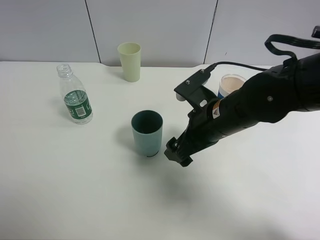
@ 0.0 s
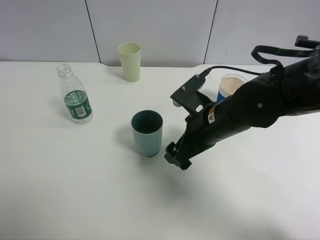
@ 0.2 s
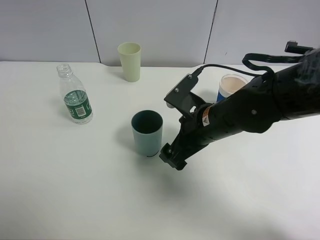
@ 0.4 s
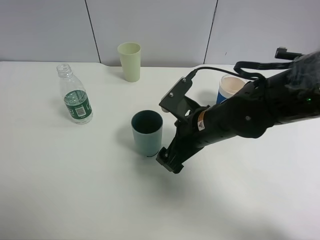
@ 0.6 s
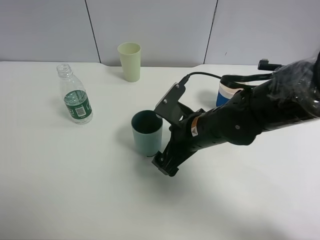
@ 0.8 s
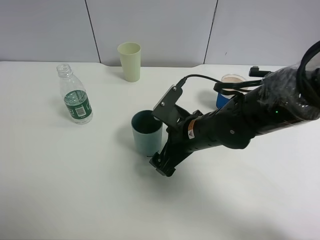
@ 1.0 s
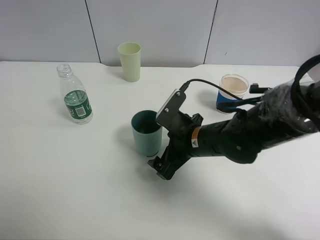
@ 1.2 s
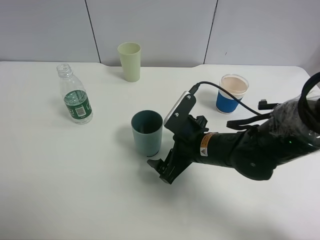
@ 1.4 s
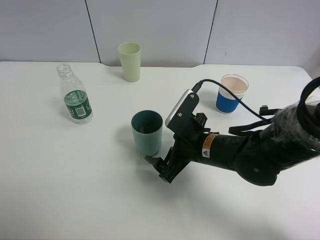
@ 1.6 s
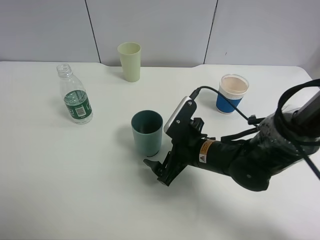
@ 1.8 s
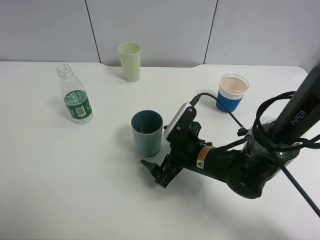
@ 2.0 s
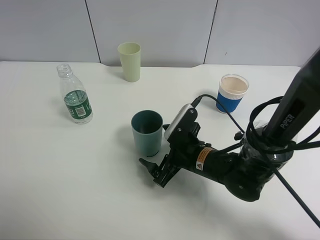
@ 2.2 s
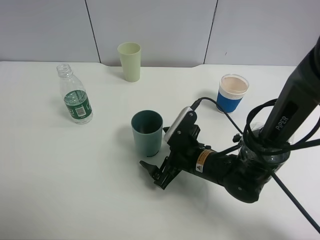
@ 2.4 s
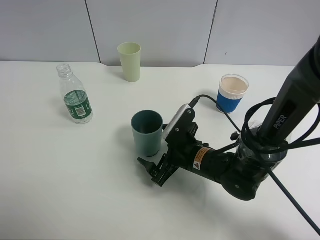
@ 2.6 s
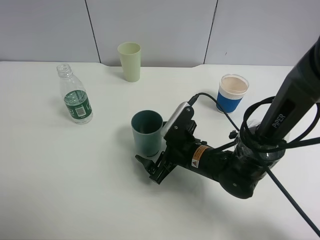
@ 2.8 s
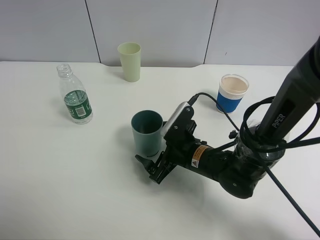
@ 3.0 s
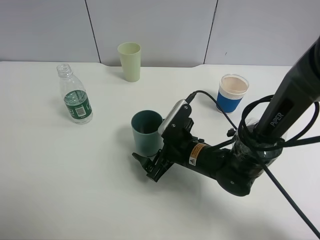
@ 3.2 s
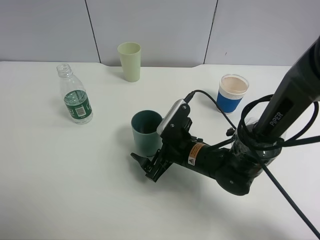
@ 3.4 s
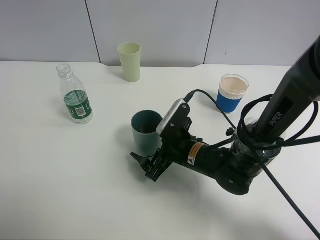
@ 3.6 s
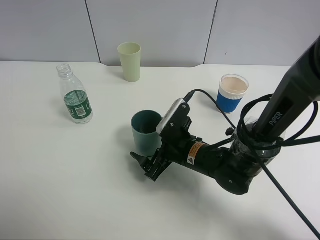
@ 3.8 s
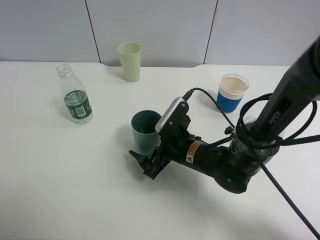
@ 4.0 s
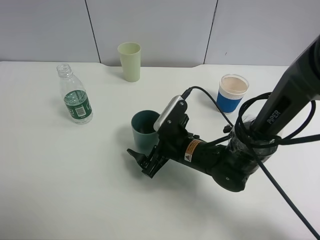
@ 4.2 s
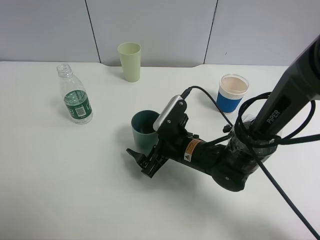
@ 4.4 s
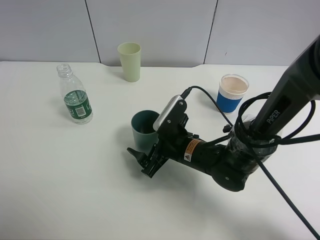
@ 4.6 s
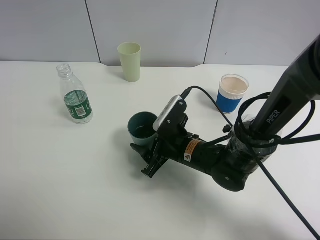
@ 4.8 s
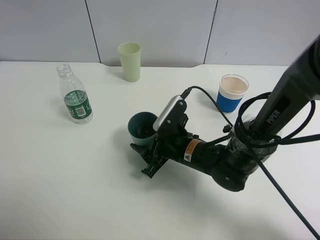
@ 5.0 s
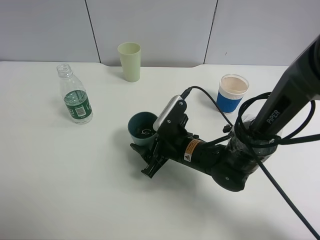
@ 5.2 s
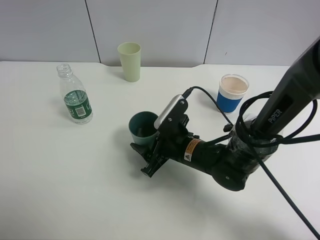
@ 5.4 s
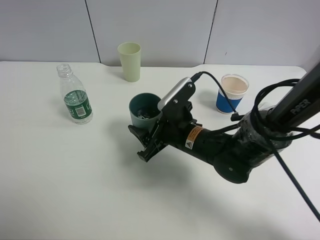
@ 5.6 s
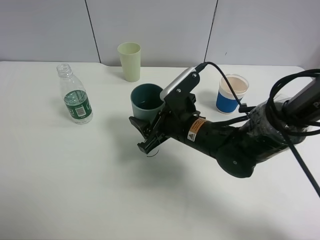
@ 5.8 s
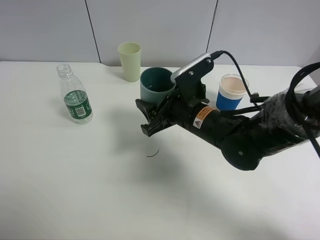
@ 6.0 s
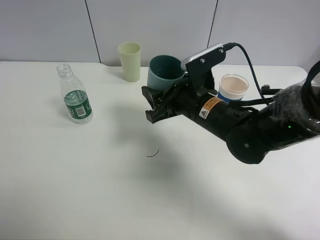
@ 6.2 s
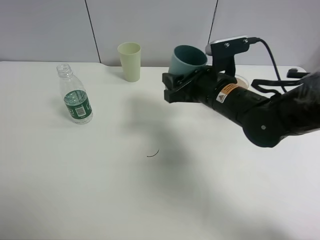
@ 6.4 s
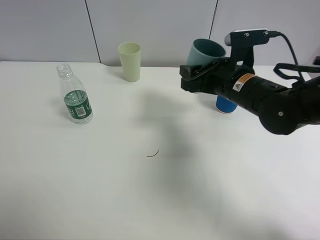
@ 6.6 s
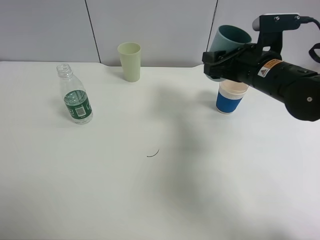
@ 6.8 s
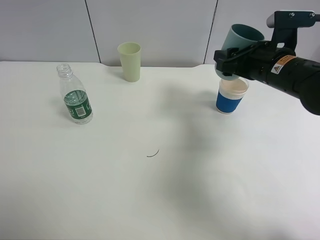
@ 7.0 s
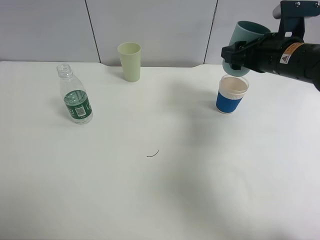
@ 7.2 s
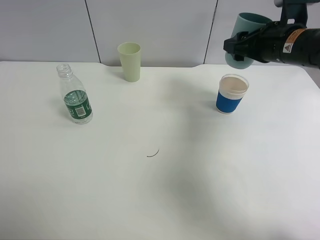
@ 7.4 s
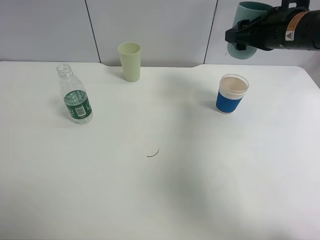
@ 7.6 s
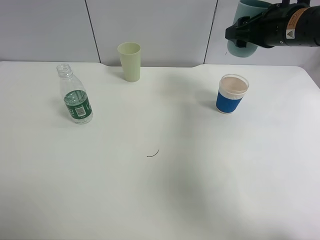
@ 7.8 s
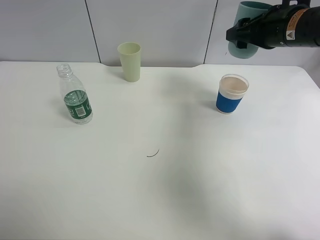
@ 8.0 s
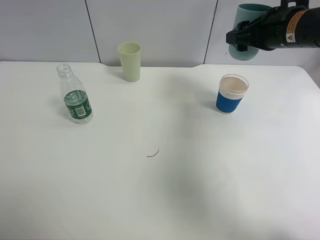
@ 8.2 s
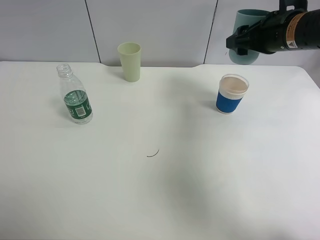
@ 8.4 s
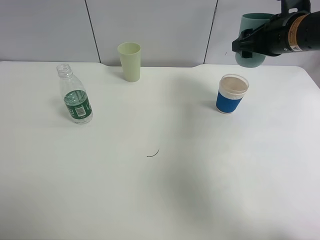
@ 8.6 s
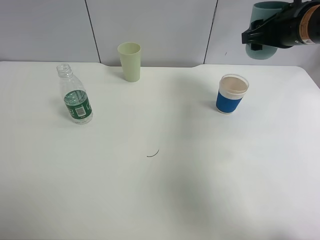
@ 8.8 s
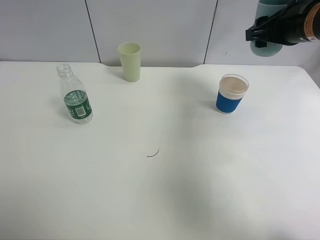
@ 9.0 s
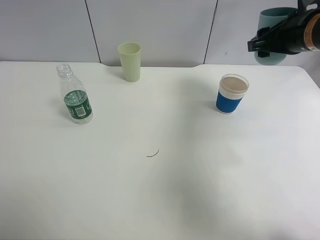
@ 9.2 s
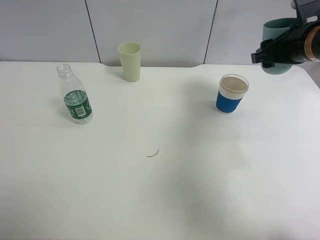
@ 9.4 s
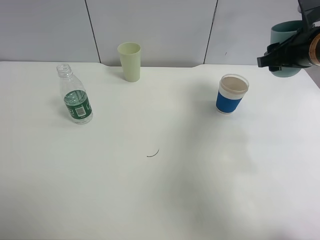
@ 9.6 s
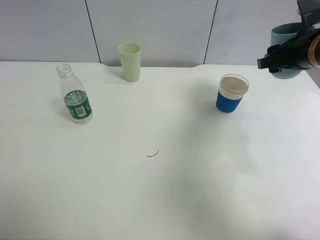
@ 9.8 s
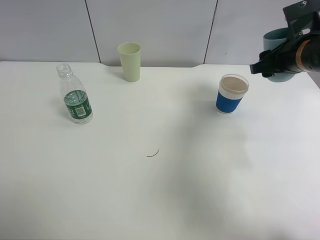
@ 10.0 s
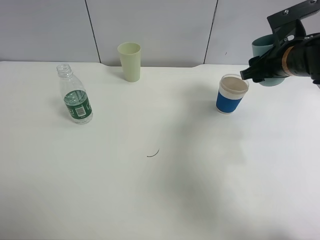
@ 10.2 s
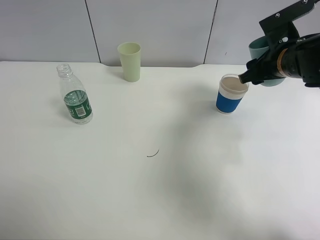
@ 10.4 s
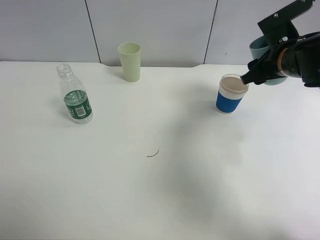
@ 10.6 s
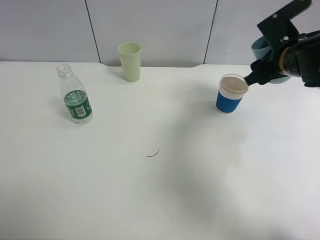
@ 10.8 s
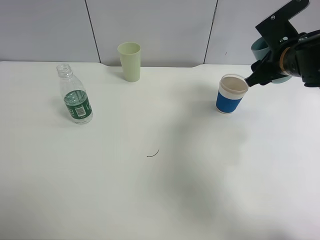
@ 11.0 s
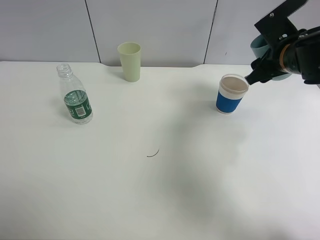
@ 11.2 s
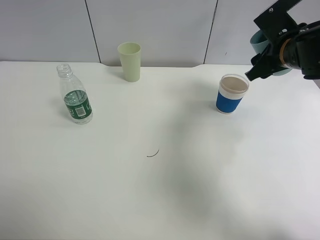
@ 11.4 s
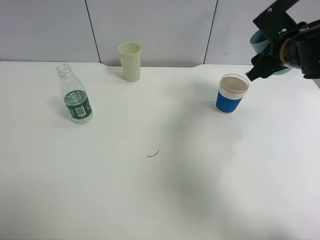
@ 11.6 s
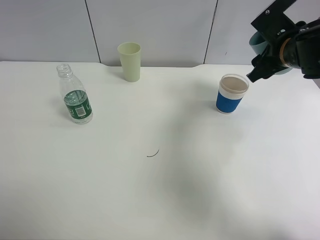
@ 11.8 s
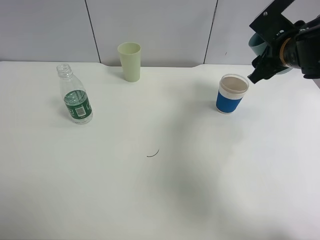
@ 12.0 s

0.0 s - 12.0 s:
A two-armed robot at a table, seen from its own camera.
Task of the whole recording: use a clamp to hold the bottle of the drink, pour the beverage into a random cup, then clamp the cup containing the drink and pour the drink into another random cup.
Step, 0.0 s - 5.6 s: Pick up the blue plastic cup bottle with right gripper.
0.0 s - 1.6 s: The right gripper goes about 5 cm downward.
1.6 s - 4.4 s: There are only small adjustments of the grippers.
4.4 s - 6.0 s: The right gripper shifts roughly 10 cm upward, and closes.
6.0 s - 7.6 s: The right gripper heads to the right, upward and forward, covering about 20 cm.
7.6 s - 9.0 s: The grippers stay close to where they were, moving slightly.
9.0 s - 10.4 s: The right gripper moves downward, some 5 cm.
10.4 s - 12.0 s: The grippers stay close to where they were, moving slightly.

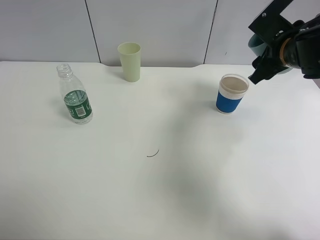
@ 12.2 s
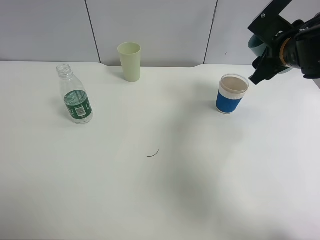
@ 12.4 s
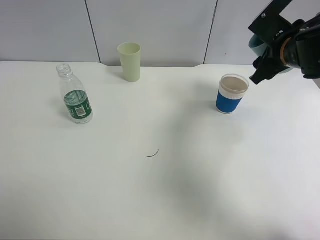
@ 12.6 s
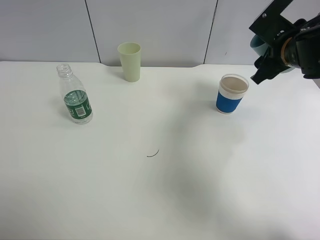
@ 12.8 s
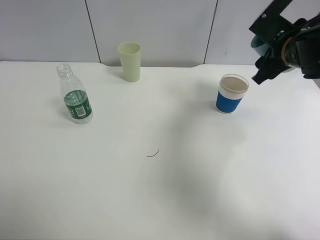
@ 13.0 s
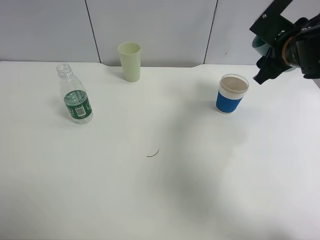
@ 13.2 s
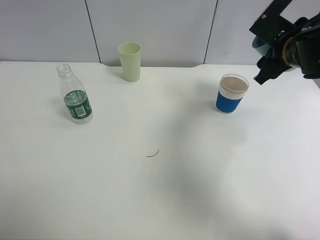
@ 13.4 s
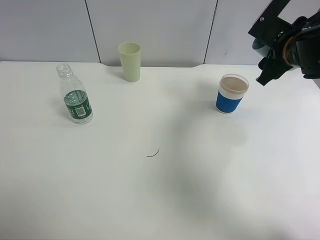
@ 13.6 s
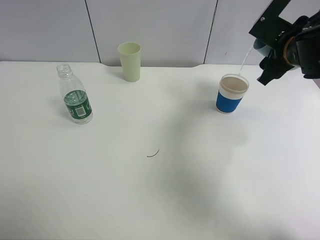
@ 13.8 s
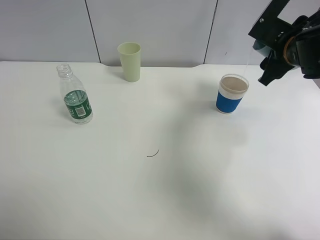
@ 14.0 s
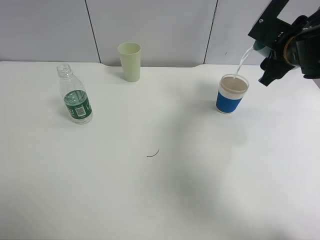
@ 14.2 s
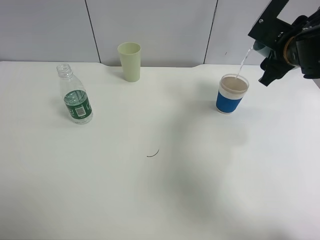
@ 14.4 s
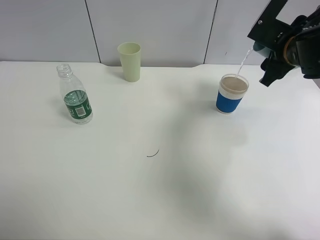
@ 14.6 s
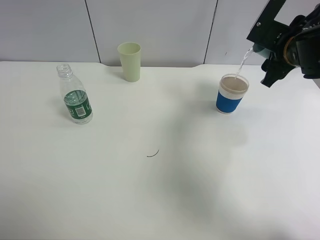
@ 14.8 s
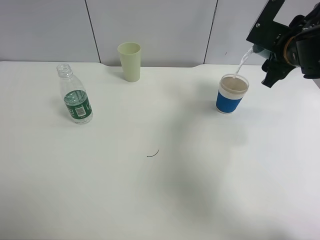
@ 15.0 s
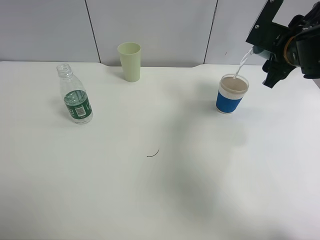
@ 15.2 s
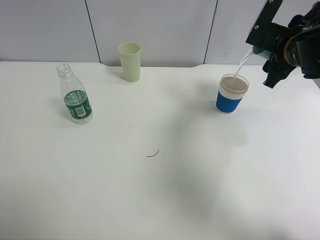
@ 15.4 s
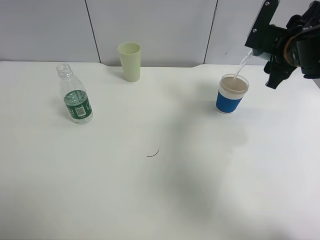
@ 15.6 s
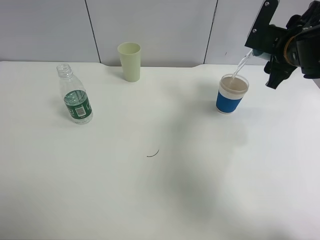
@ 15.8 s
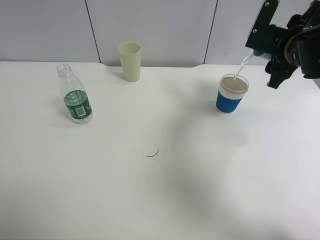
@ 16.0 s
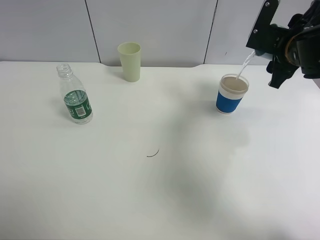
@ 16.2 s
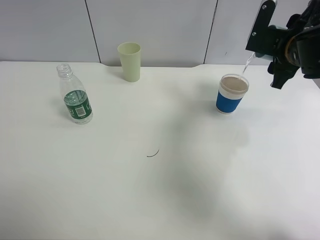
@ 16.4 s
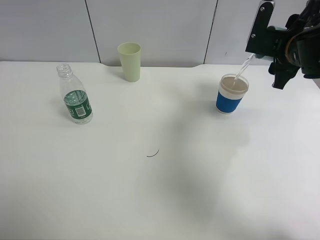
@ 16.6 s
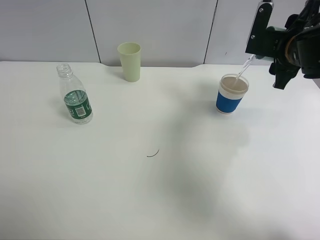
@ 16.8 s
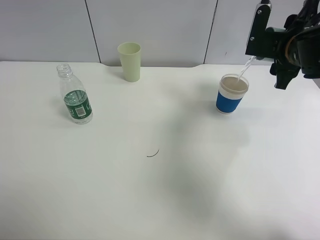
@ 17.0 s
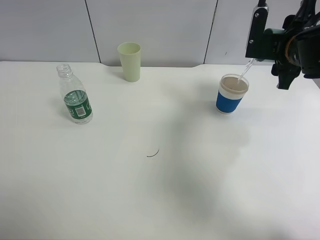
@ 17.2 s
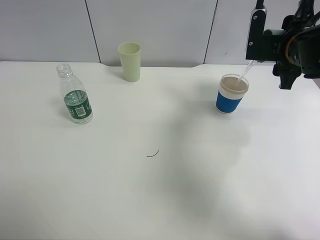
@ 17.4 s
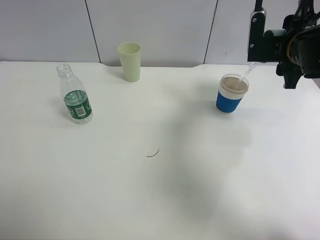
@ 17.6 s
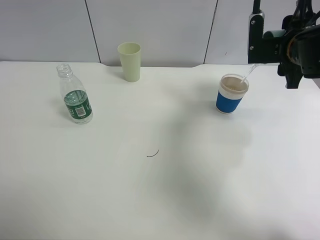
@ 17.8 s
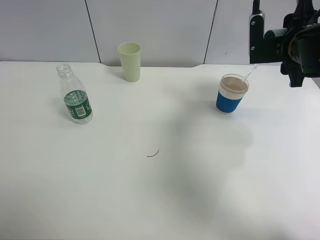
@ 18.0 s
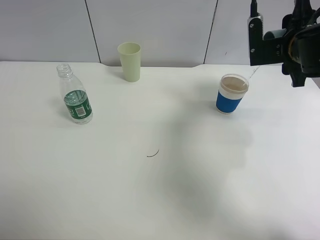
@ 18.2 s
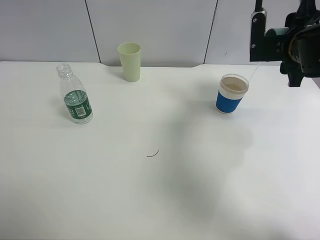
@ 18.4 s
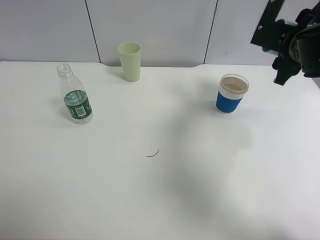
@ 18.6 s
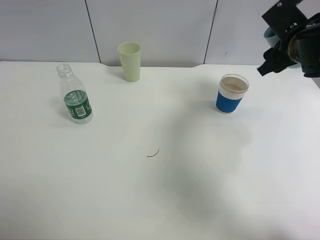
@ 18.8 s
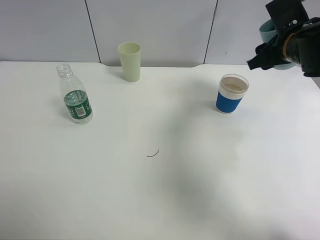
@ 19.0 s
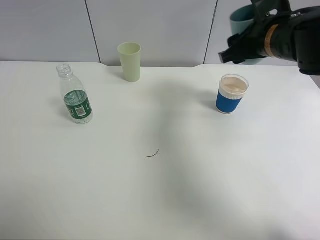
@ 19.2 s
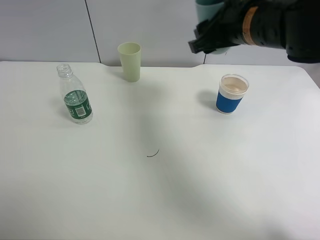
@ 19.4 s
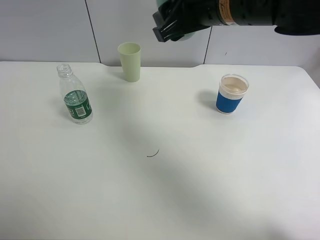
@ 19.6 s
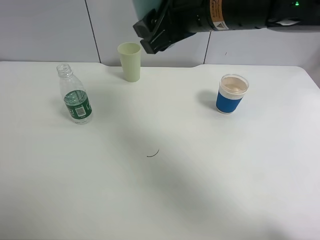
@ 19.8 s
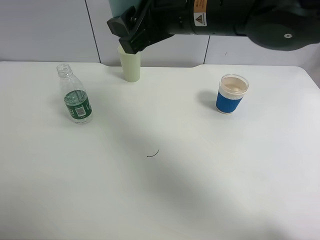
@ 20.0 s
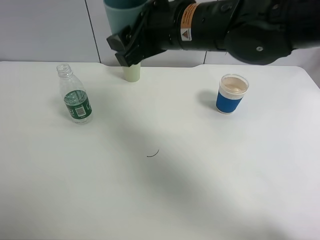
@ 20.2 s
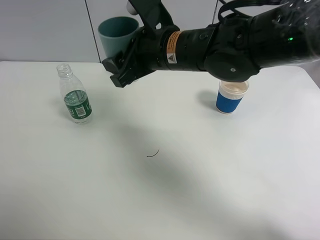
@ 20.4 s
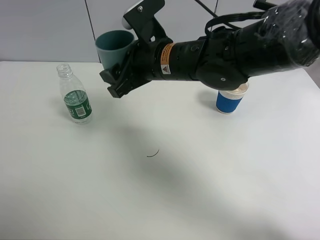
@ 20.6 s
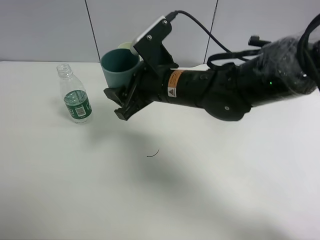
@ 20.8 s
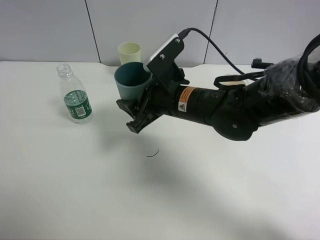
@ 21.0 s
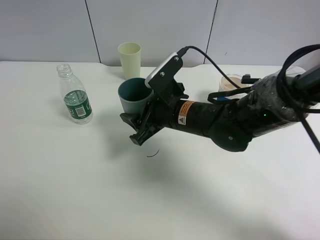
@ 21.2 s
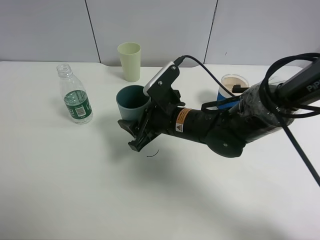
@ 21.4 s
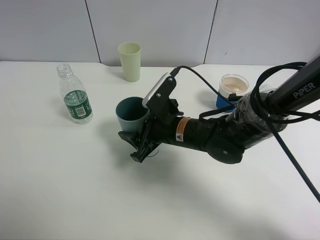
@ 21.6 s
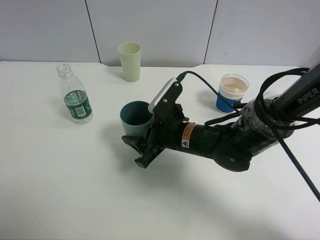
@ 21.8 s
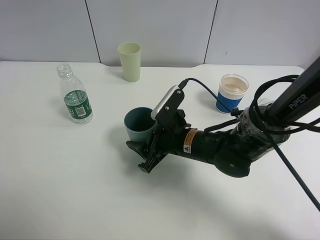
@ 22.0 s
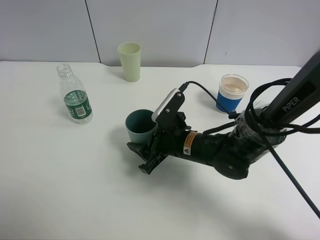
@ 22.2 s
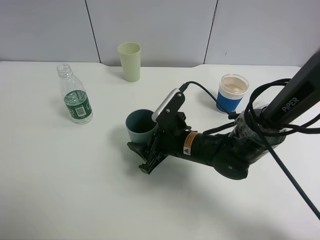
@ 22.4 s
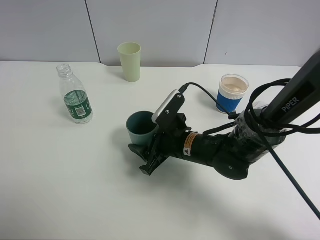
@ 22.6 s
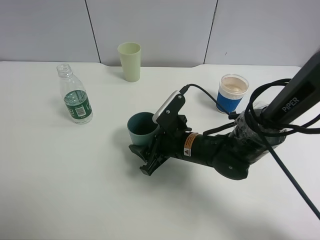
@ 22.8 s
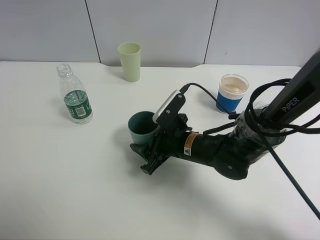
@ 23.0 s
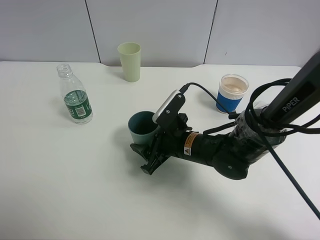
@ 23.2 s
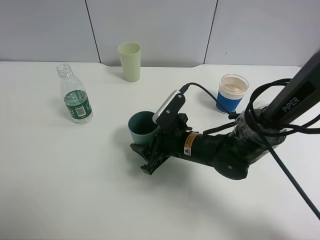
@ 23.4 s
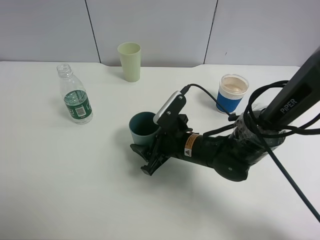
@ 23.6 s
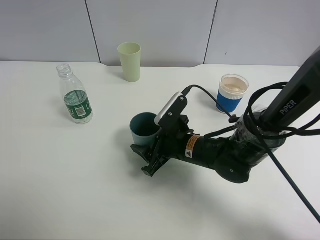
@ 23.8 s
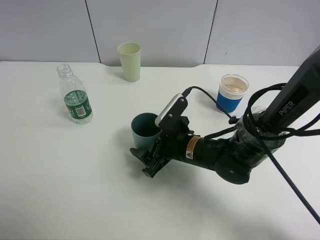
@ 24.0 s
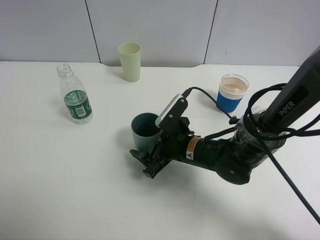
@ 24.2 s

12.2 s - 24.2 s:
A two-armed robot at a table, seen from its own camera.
Task of the whole recording: use a clamp to hold the bottle of the drink, pour the beverage into a random cup, then clamp the cup containing the drink and pour the drink into another random cup.
Step, 12.2 s - 19.0 s: Pour water into the paper cup with right gripper.
12.2 s - 15.2 s: The grippers stay close to where they were, moving slightly.
15.2 s - 16.6 s: The grippers move only a little.
18.2 s - 19.8 s: The right gripper goes some 20 cm to the left and upward.
19.8 s - 21.2 s: The right gripper travels downward by roughly 20 cm.
21.2 s - 22.6 s: The right gripper heads downward, covering roughly 5 cm.
22.6 s - 24.2 s: The right gripper opens its fingers.
